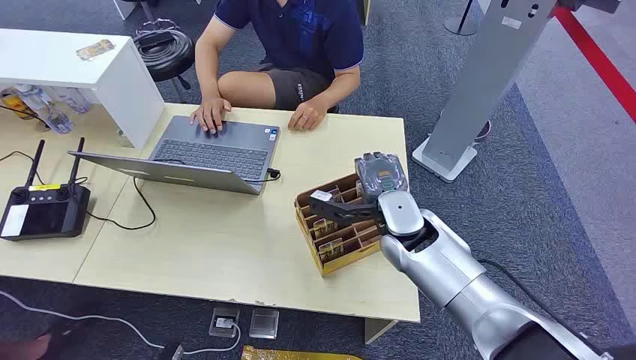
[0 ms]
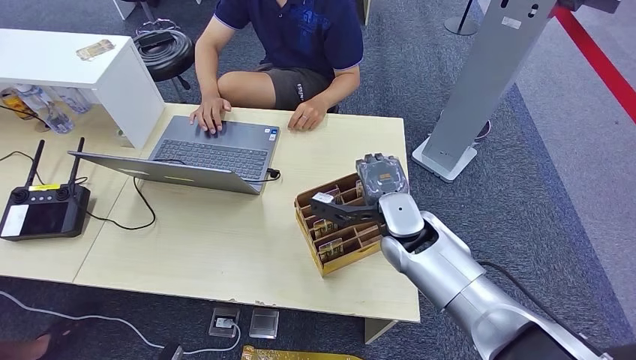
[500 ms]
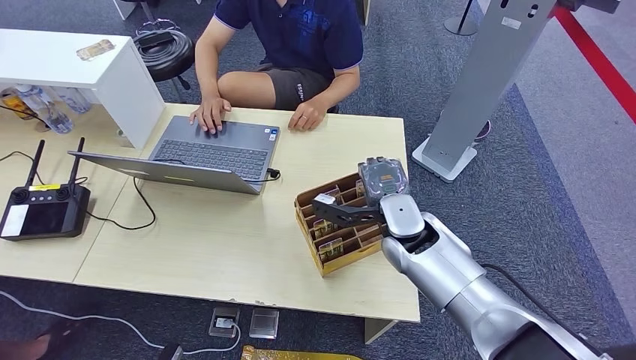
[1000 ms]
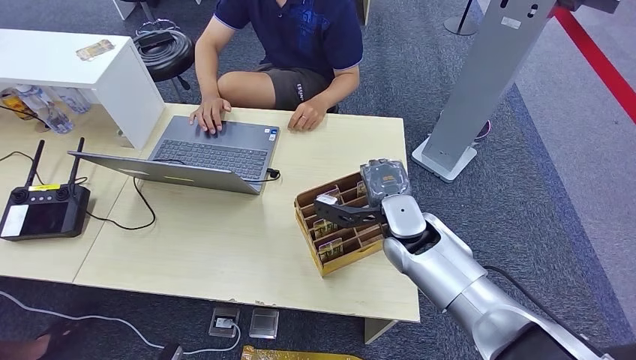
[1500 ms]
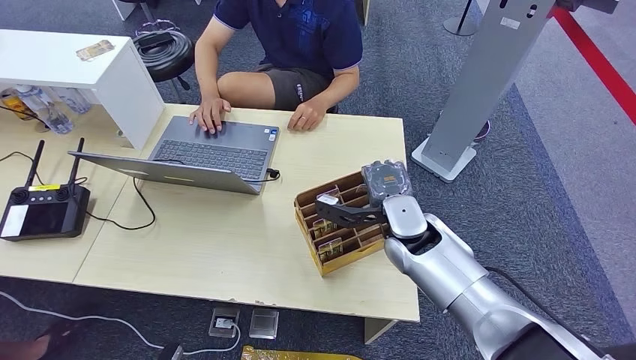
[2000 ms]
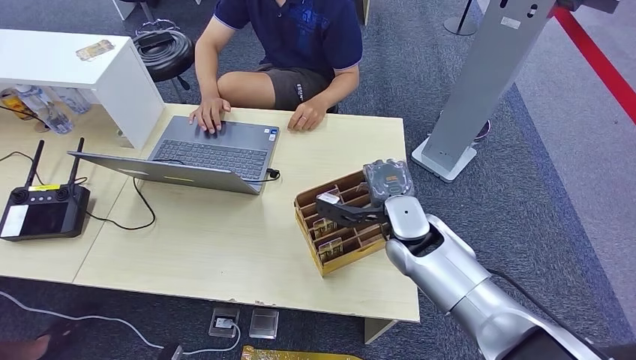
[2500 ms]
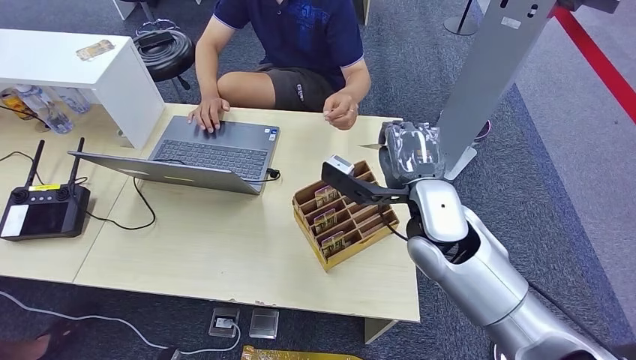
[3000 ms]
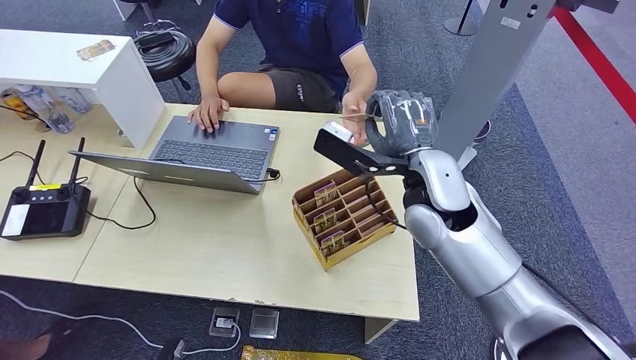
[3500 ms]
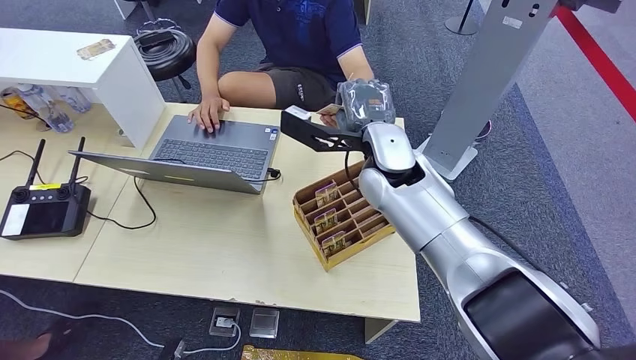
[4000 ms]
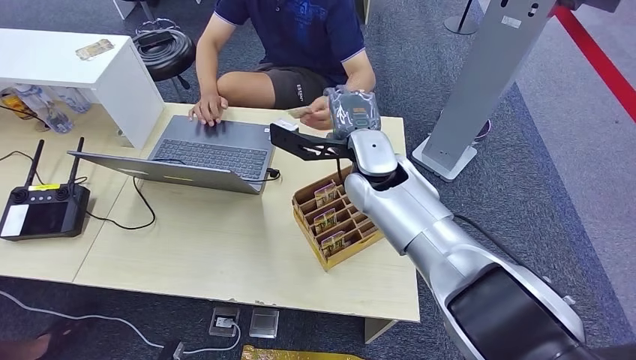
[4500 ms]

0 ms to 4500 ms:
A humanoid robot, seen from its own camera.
Step, 0 ms to 2500 ms: Pick up the room card from the card holder.
Step, 3500 ms to 4500 ms: Hand the room card to the target.
2000 ms to 4500 ms: The right hand travels upward and to the left by some 15 cm.
